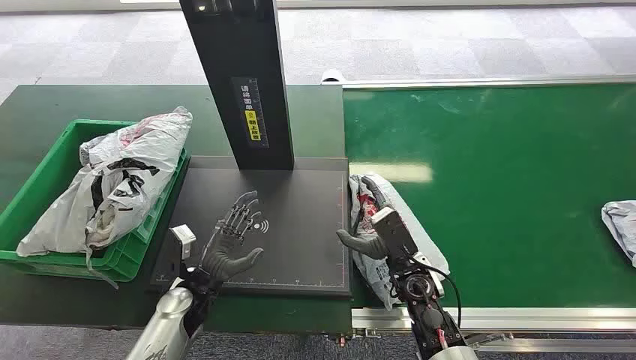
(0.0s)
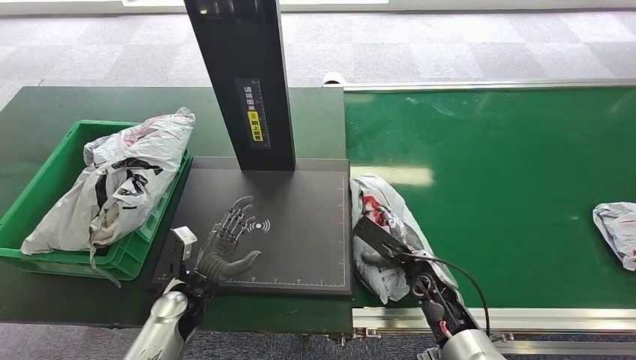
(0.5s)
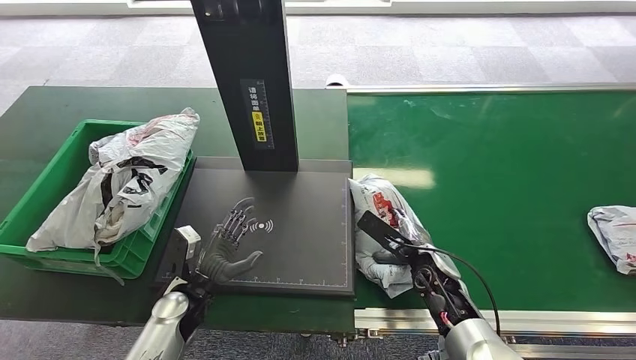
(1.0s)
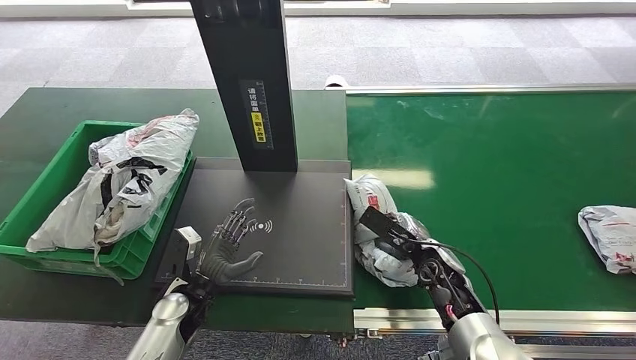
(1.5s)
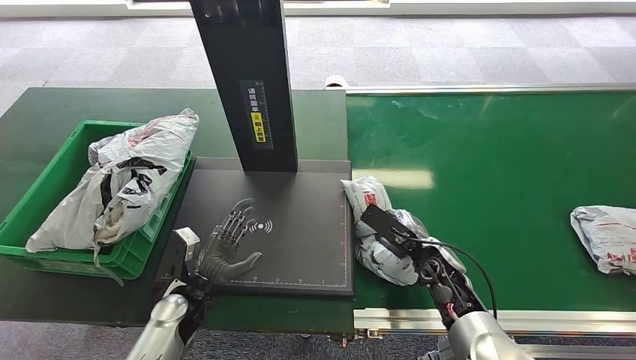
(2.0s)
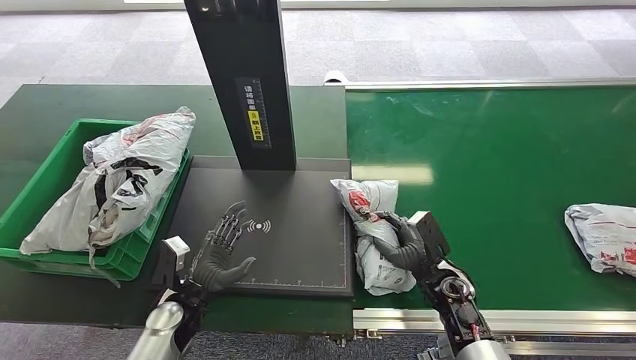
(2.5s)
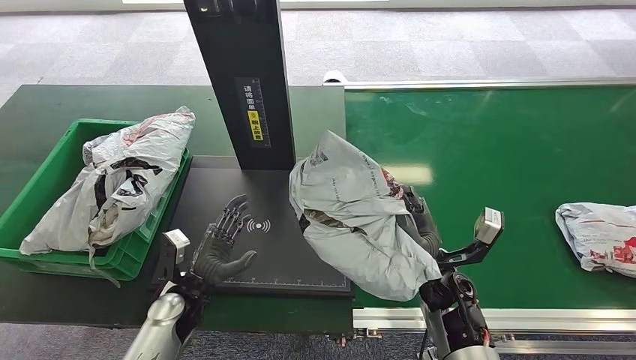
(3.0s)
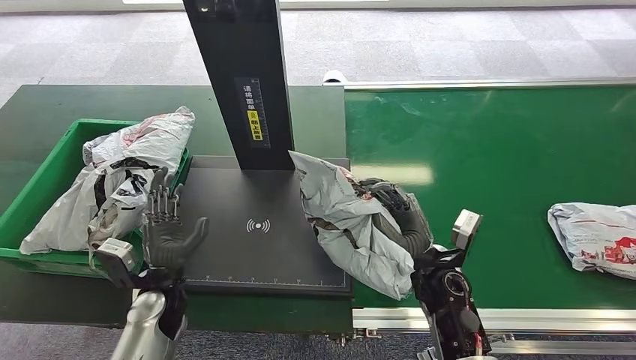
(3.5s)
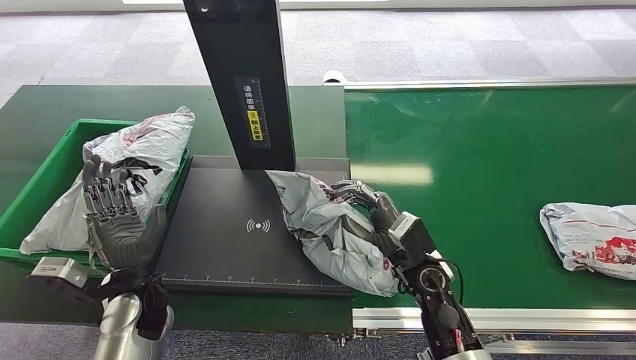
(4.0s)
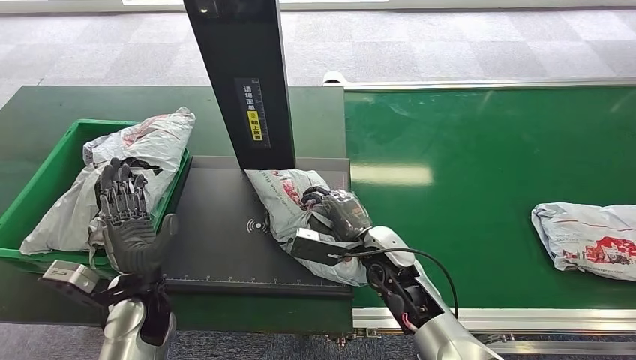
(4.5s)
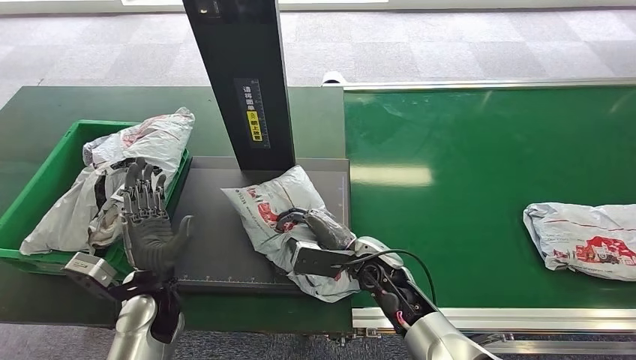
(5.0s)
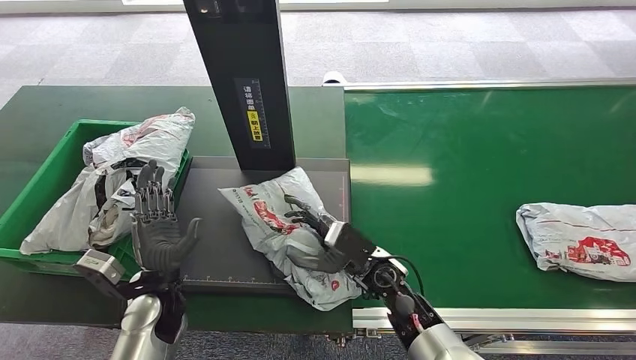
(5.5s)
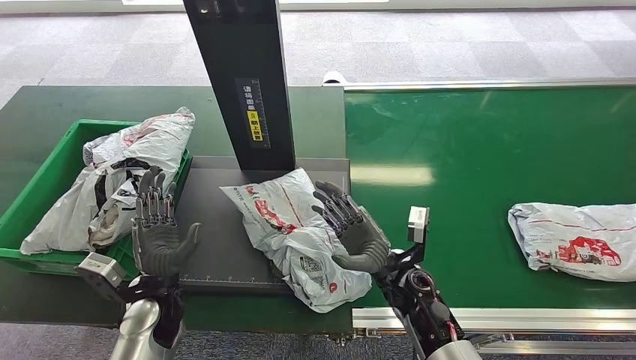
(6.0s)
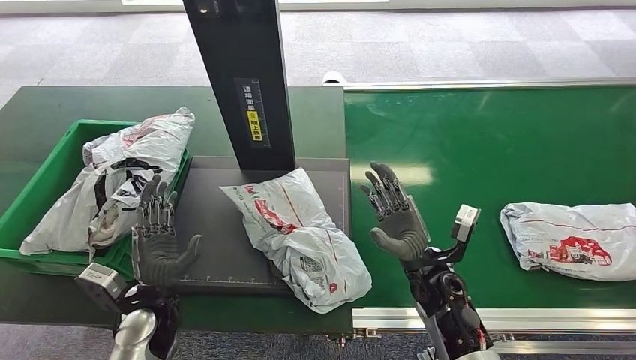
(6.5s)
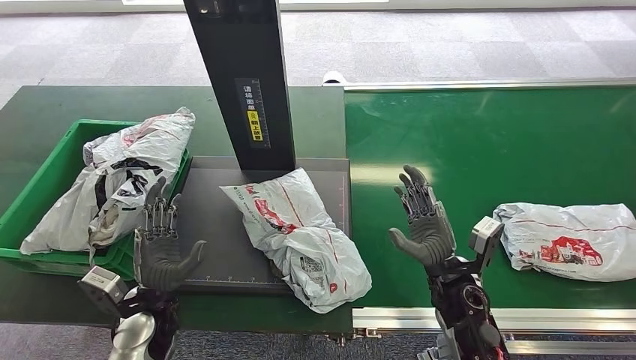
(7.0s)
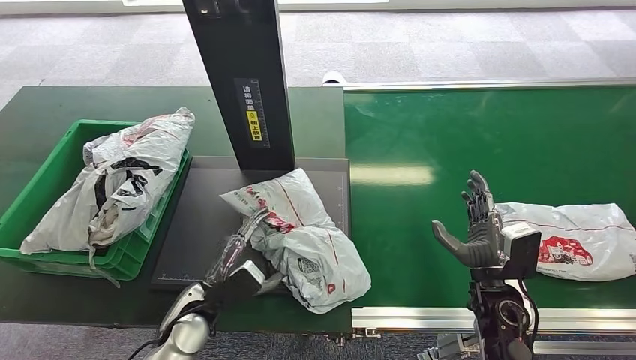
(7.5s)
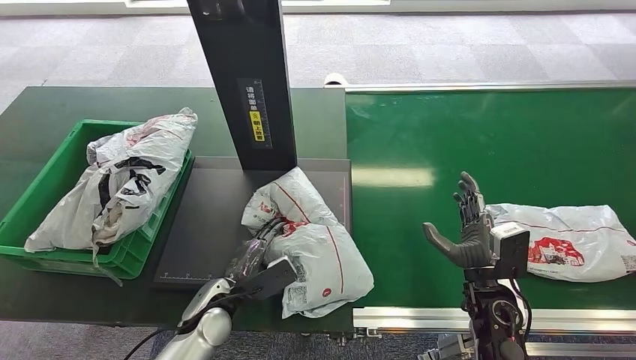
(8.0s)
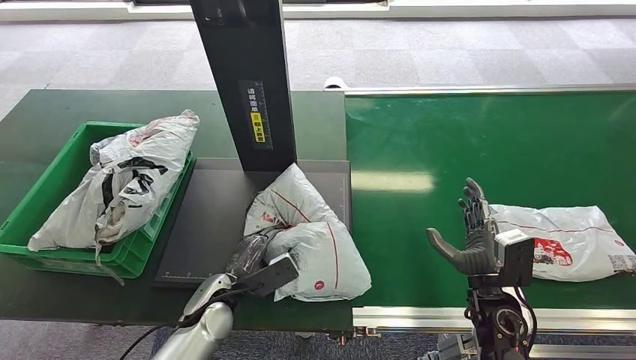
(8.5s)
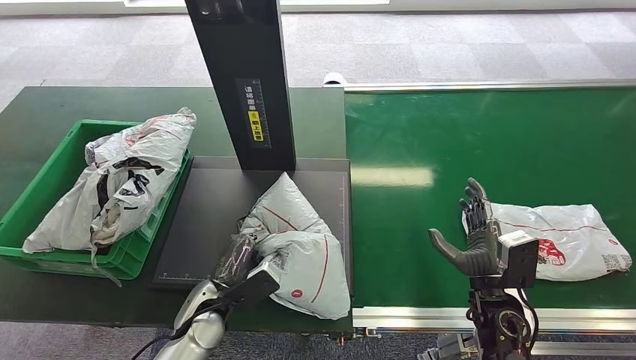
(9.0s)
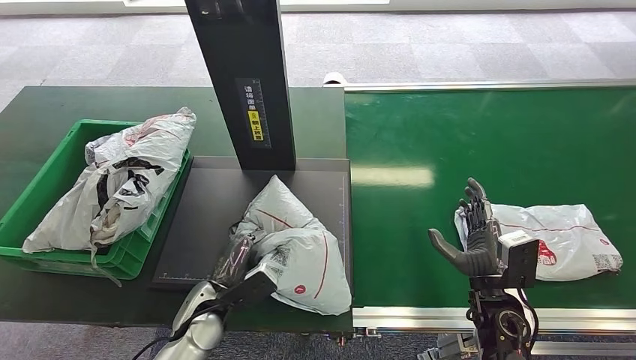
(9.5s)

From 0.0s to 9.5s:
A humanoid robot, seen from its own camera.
Task of the whole recording: Weigh the package on the weighing device and place it in the left basket.
Step, from 0.0s to 3.0s: Pick up the package from the conveyor belt.
Step, from 3.5s to 6.0s: Place the package onto the inbound machine.
From 4.0s to 5.5s: The right hand goes approximately 5 cm to the left.
From 5.5s to 7.5s: The right hand is displaced to the right by approximately 20 cm; the left hand moves approximately 5 cm.

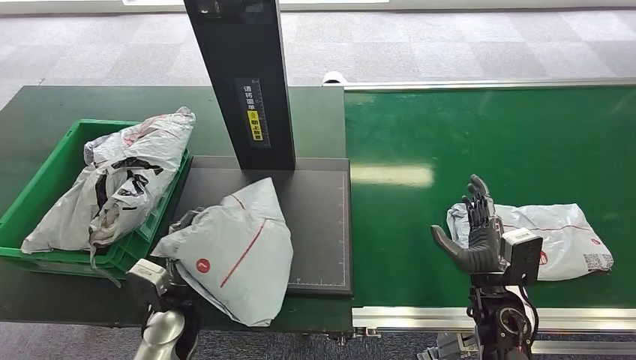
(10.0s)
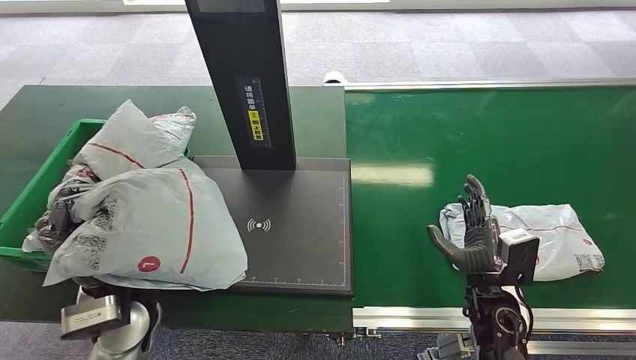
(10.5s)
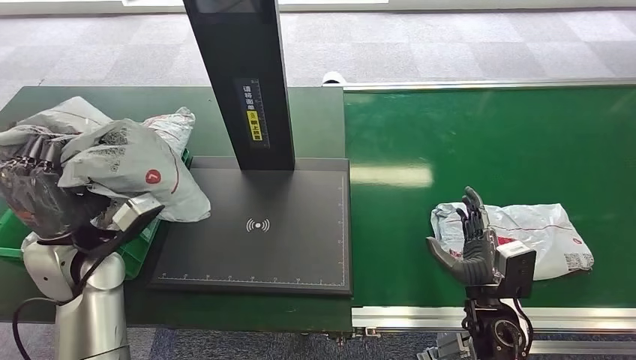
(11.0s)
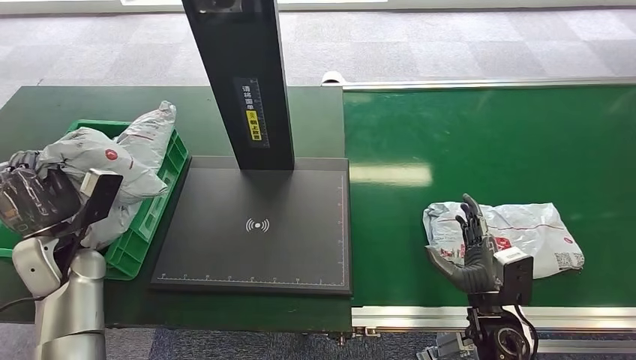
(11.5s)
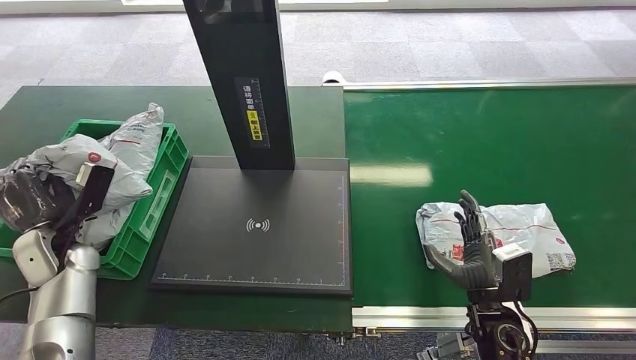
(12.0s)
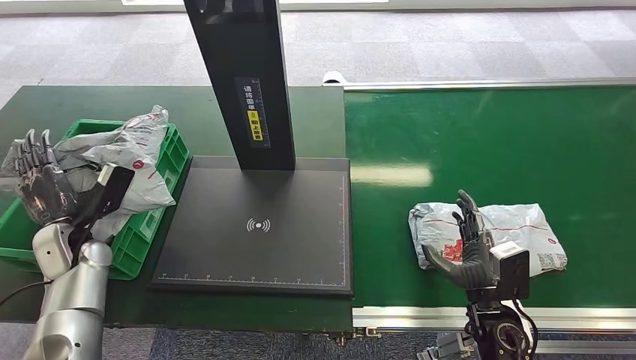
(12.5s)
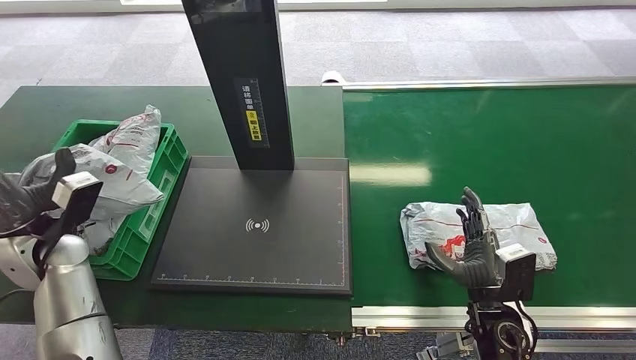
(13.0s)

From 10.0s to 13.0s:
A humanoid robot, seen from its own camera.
Task of the whole recording: Weigh the package on the weighing device and place it in the left basket.
Step, from 10.5s to 13.0s: Place the package into the parcel locker.
